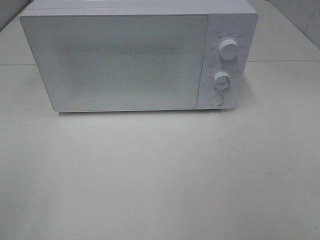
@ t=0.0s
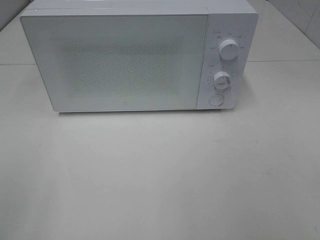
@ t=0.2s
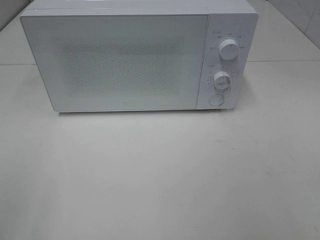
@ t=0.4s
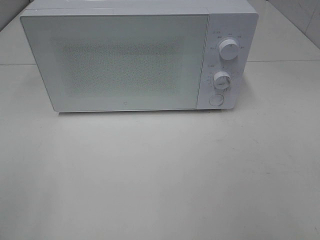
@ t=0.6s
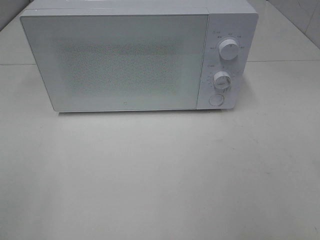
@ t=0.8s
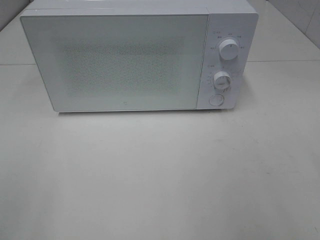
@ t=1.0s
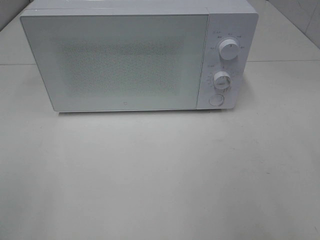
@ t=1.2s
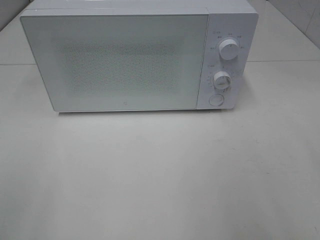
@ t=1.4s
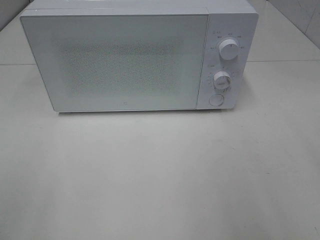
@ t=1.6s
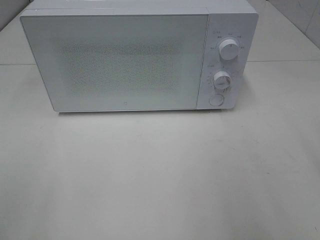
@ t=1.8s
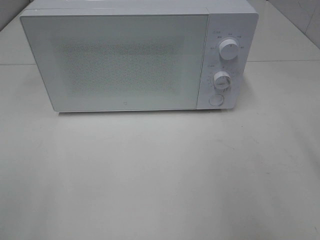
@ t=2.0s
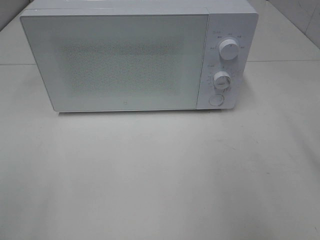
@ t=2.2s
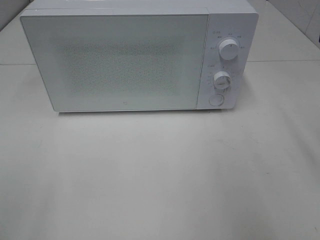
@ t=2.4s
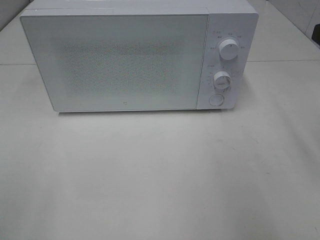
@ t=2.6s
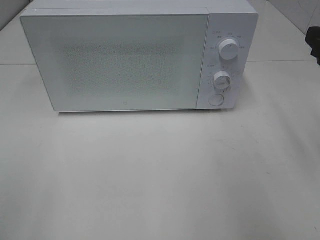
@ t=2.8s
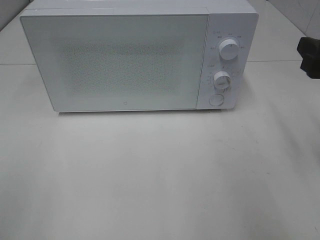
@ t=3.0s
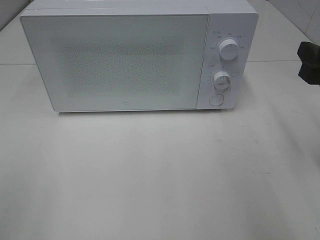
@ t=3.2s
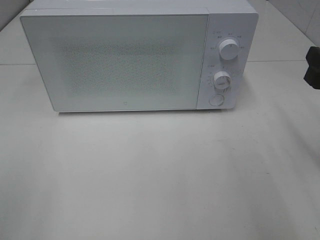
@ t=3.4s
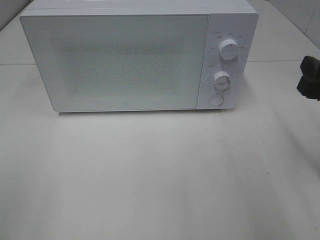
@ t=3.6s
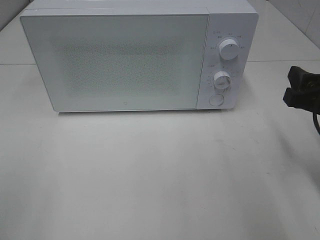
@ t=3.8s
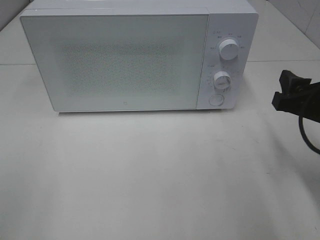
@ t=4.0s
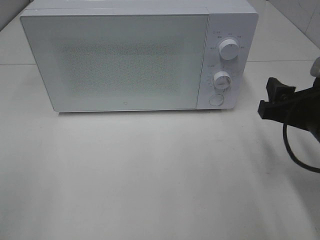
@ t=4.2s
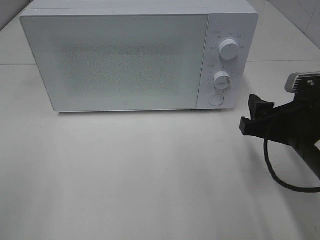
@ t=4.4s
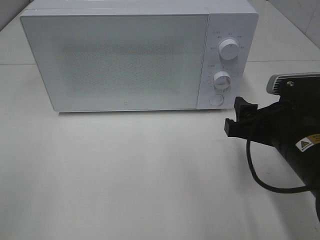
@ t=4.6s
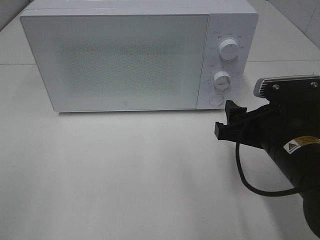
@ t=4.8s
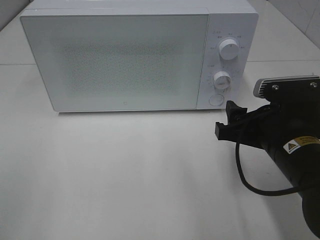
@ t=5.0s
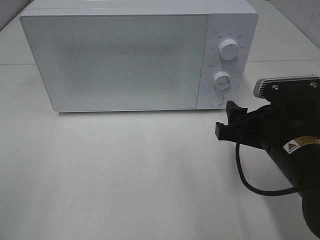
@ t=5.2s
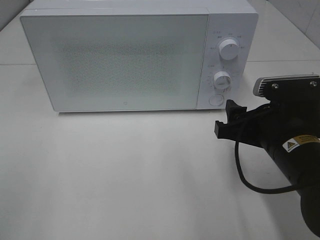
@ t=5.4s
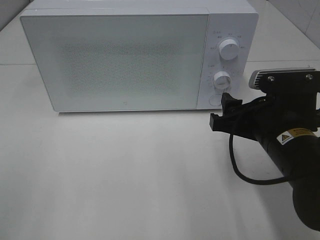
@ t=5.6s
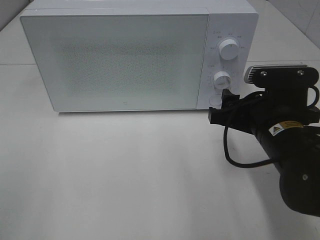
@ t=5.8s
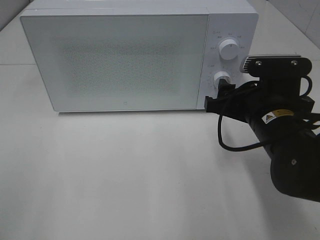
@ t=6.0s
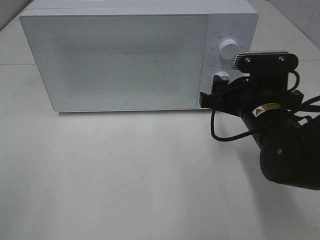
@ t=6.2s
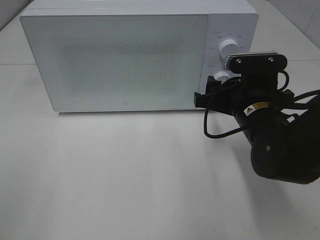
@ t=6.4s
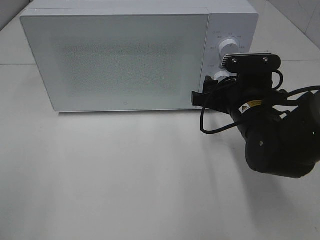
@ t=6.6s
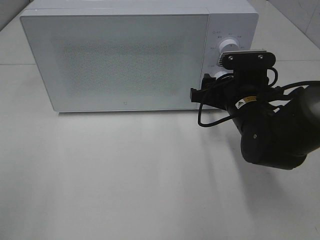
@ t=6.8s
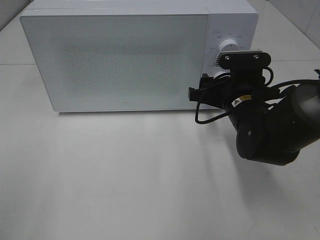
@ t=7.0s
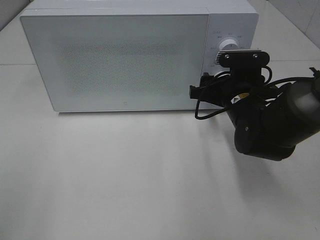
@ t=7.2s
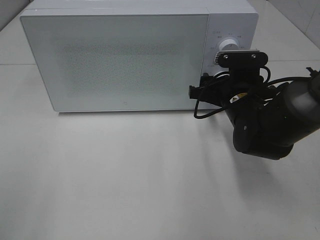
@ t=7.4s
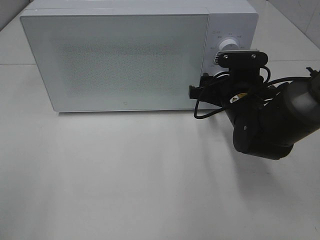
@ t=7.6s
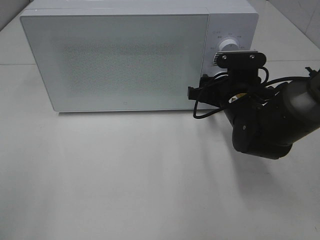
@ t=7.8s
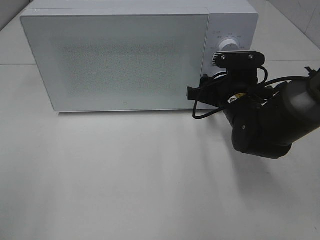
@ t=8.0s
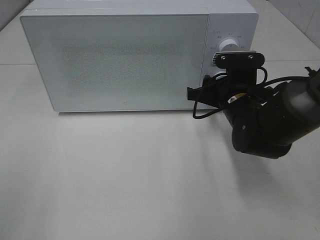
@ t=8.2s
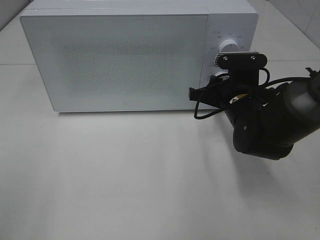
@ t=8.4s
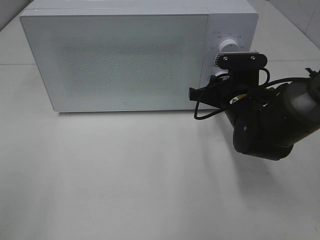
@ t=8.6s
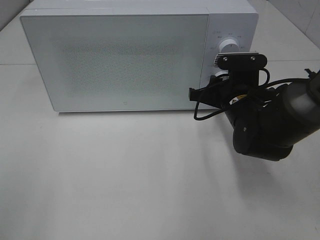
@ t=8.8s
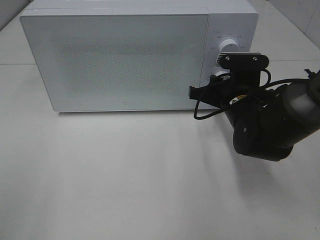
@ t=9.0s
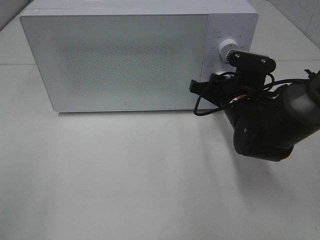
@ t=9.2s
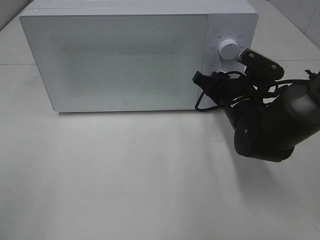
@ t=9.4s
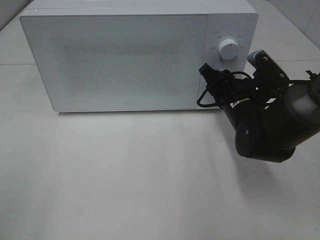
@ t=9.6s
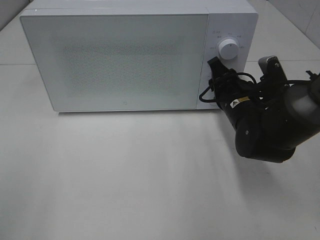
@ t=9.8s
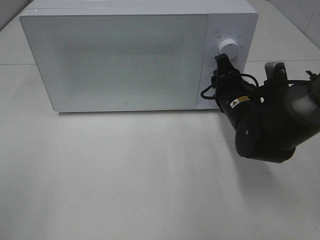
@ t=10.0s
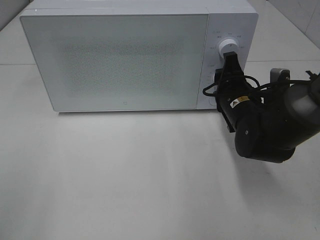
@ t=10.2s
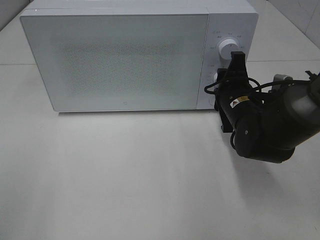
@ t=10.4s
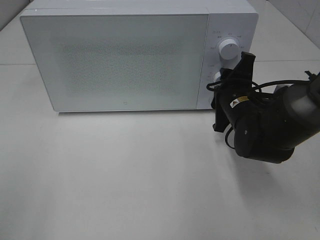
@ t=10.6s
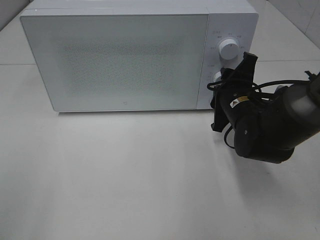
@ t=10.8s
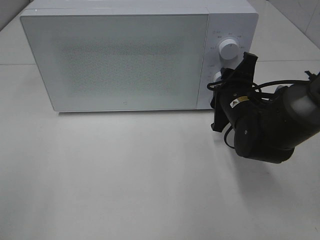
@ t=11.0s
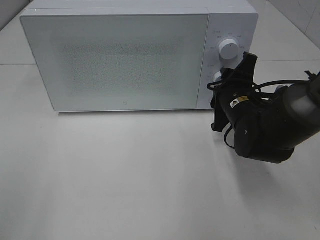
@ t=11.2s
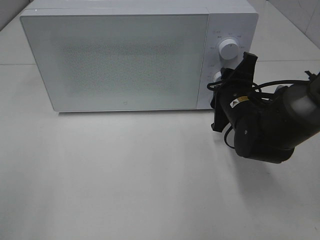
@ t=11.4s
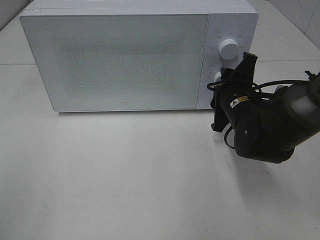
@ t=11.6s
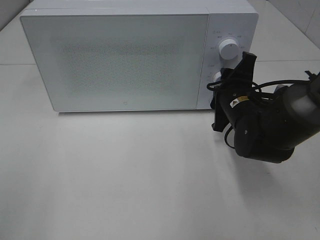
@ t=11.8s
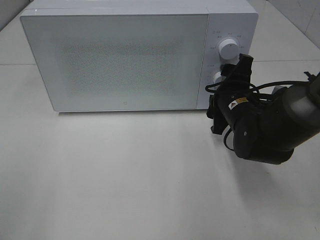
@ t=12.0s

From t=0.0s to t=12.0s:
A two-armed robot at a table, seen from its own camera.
Task of the whole recording: Heat Sandwich.
From t=1.6s to t=3.0s: The right gripper heads forward and downward, covering approximately 15 cm.
From t=3.0s to t=4.4s: The right gripper travels downward and to the left by some 10 cm.
From t=4.4s to t=6.0s: The right gripper is displaced forward by roughly 5 cm.
From t=6.0s to t=7.6s: The right gripper is displaced forward by about 10 cm.
From t=7.6s to t=9.0s: The right gripper closes.
From t=10.4s to t=12.0s: The grippers move only a little.

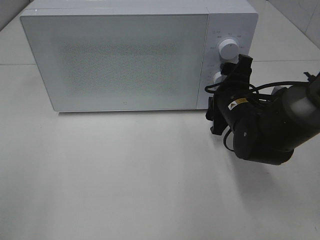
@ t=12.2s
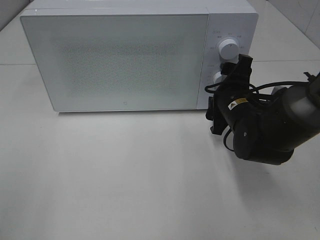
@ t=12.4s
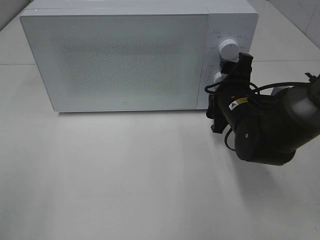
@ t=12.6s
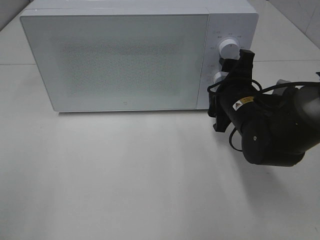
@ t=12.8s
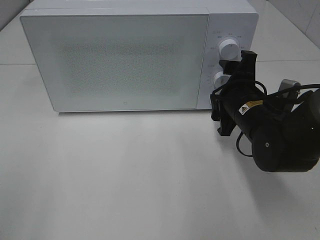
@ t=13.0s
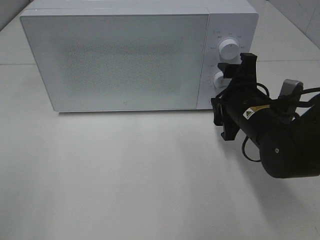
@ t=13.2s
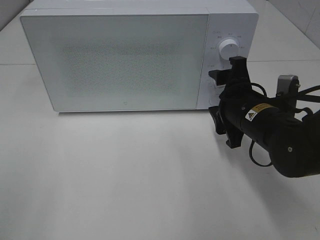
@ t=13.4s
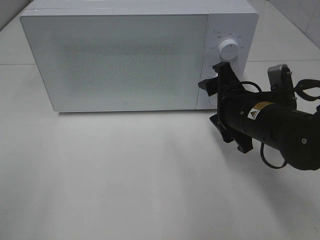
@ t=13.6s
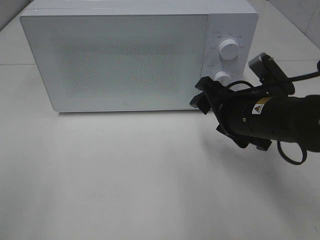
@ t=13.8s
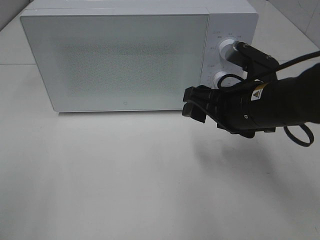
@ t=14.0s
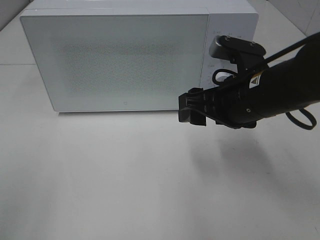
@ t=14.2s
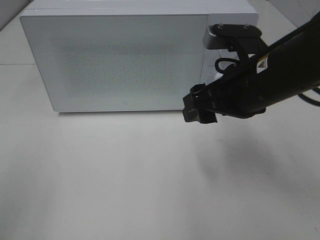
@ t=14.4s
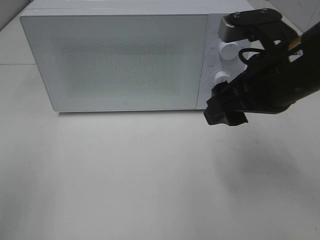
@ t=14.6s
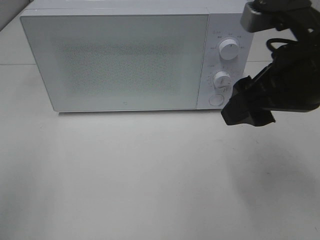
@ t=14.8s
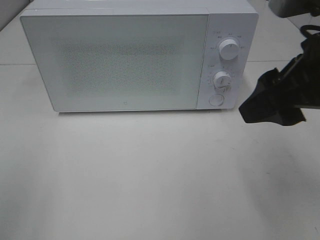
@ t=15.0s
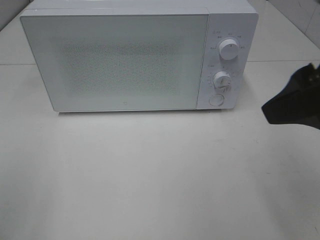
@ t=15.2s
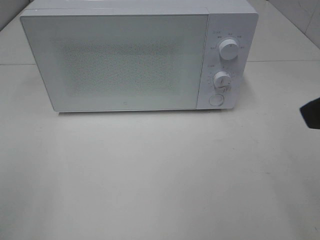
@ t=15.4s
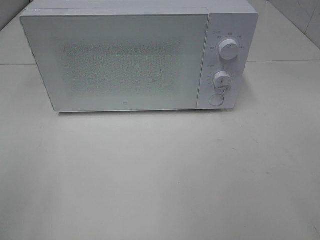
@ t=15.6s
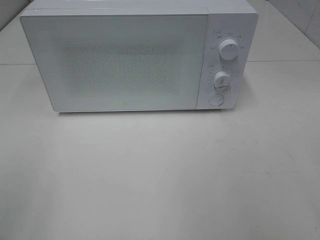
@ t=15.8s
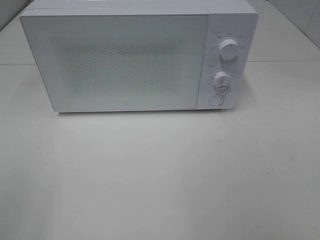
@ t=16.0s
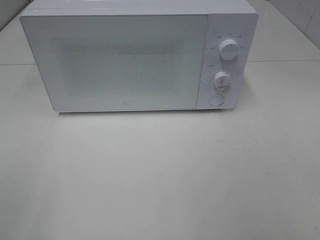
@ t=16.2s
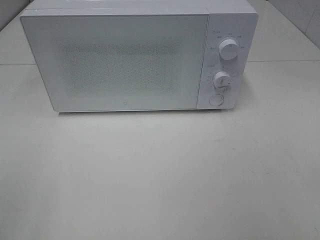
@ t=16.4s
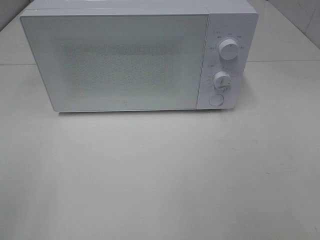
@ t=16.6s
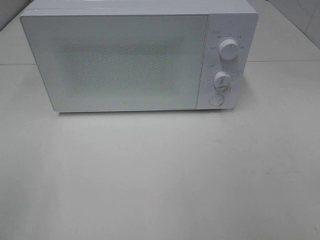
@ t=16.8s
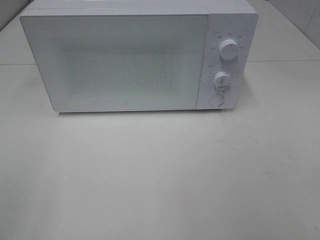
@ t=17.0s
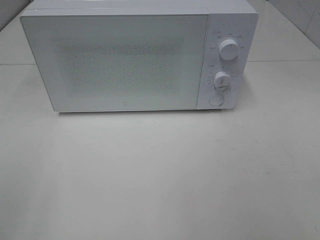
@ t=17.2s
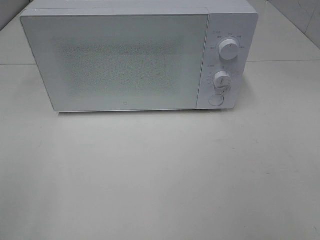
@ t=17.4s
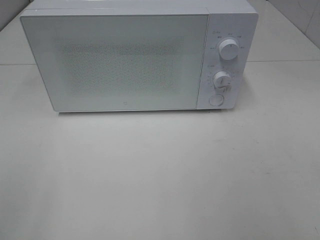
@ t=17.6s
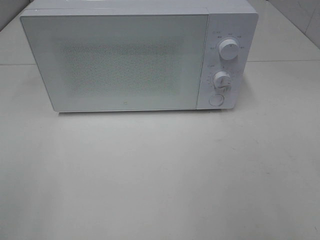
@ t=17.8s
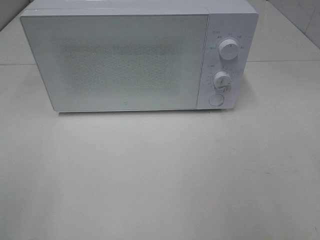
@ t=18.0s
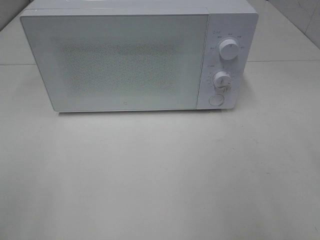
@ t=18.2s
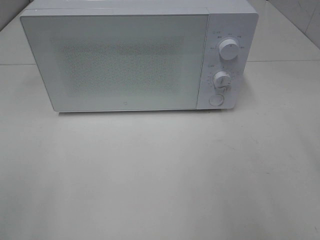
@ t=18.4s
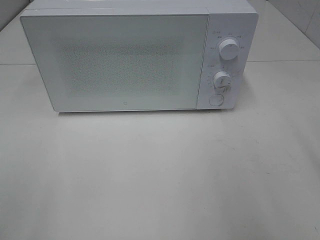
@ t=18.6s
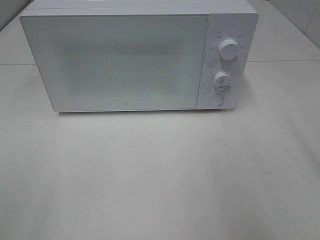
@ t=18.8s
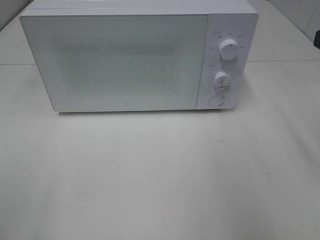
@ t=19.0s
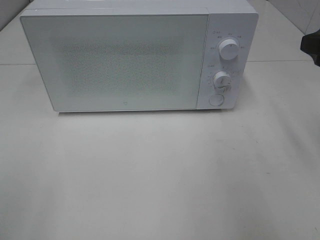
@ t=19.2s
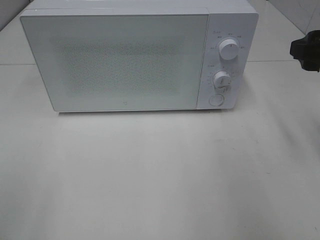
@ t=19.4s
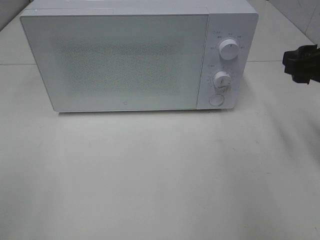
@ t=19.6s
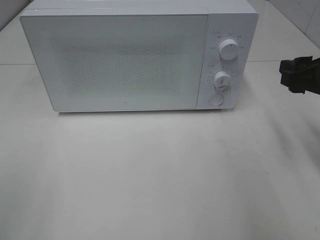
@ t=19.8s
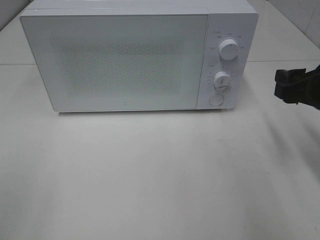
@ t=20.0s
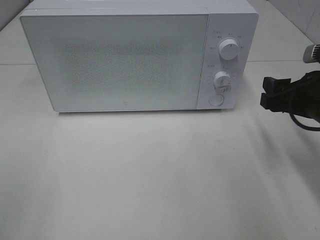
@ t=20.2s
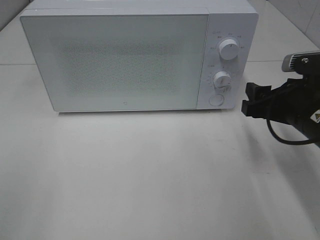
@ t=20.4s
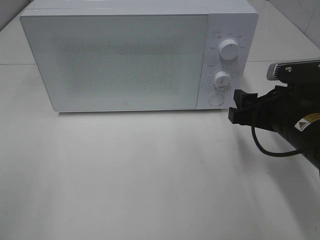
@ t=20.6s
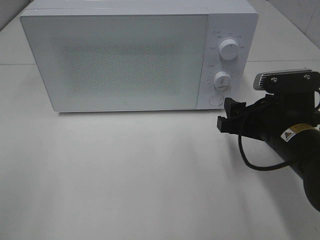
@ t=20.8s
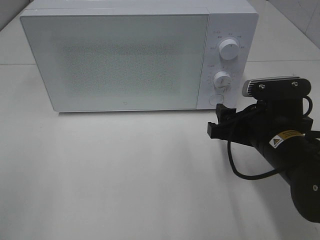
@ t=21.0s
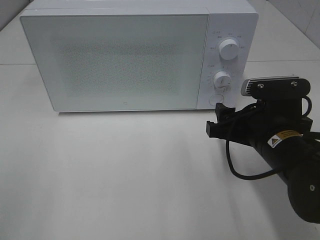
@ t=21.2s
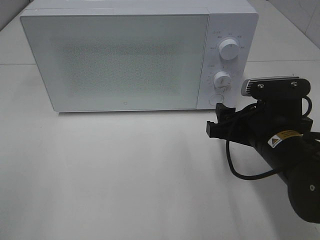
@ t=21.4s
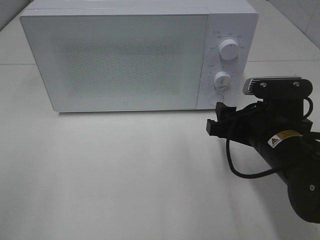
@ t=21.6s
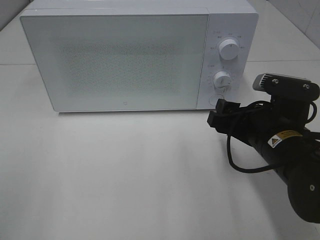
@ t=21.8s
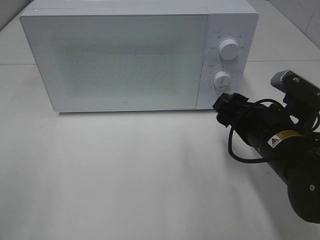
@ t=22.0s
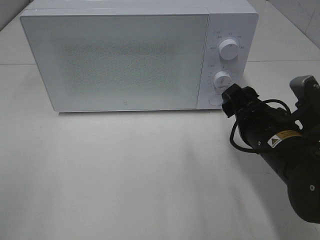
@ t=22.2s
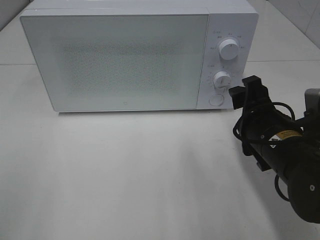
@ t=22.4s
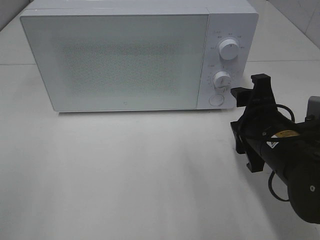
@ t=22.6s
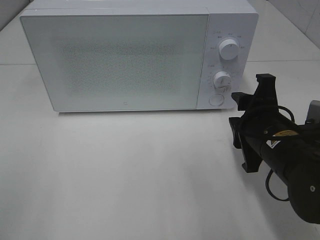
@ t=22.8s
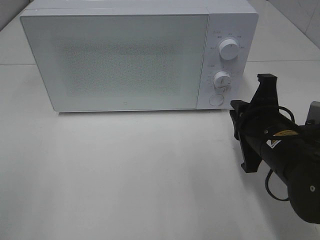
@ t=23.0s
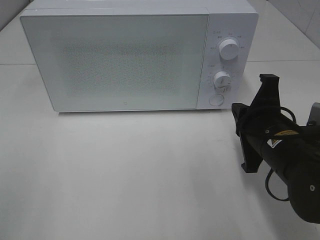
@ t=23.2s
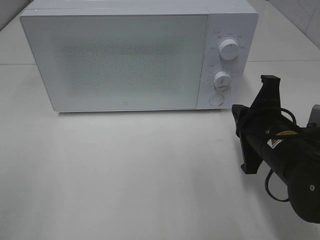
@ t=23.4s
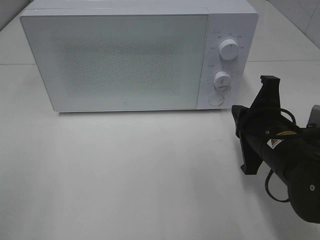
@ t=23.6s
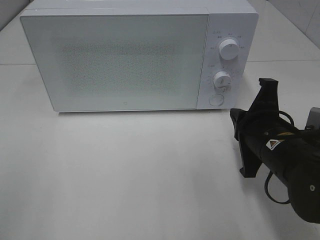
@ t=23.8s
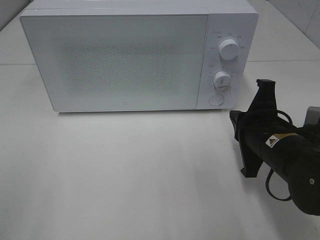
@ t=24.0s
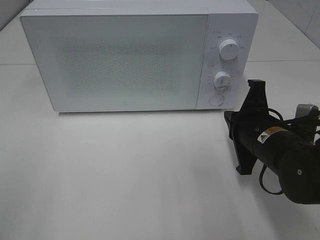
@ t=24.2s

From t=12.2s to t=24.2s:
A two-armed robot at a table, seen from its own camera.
Task of the whole recording: Heat Sandwich.
From t=12.2s to t=13.8s: The right gripper travels backward by roughly 5 cm.
From t=13.8s to t=15.2s: The right gripper moves upward and backward, roughly 20 cm.
From t=15.2s to t=16.6s: The right gripper moves backward and to the right, about 20 cm.
From t=18.2s to t=19.8s: The right gripper shifts some 20 cm forward and downward.
From t=19.8s to t=21.2s: The right gripper is displaced to the left and downward by approximately 15 cm.
From t=22.6s to t=24.2s: The right gripper closes up.
